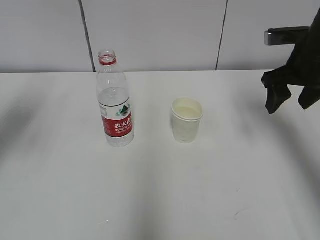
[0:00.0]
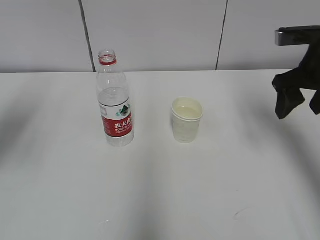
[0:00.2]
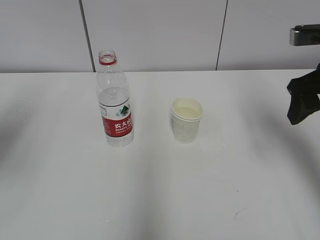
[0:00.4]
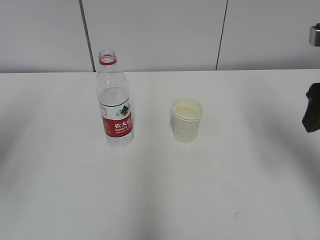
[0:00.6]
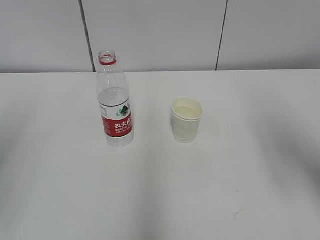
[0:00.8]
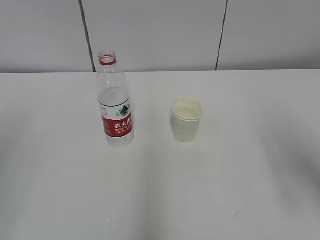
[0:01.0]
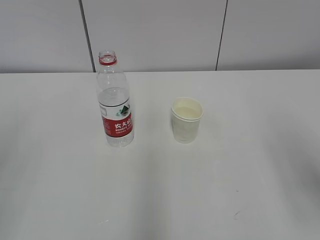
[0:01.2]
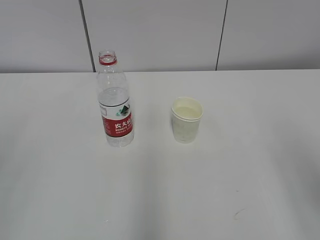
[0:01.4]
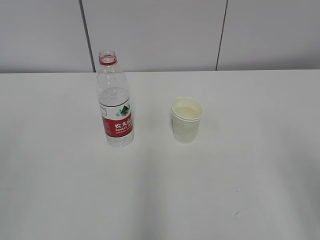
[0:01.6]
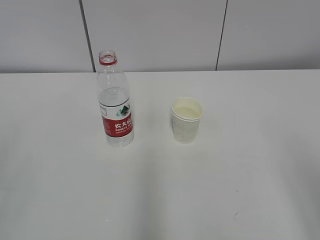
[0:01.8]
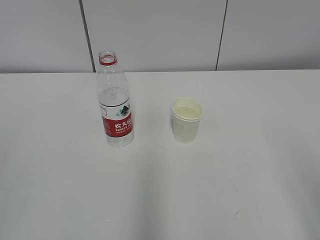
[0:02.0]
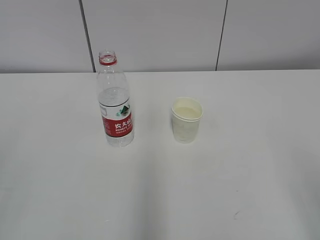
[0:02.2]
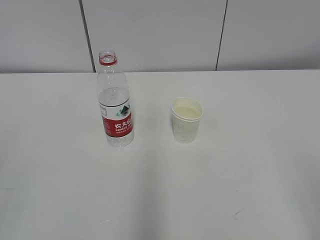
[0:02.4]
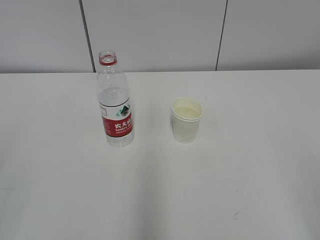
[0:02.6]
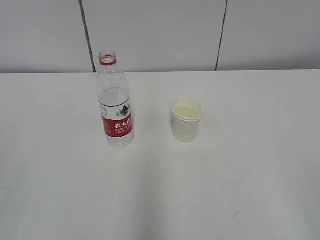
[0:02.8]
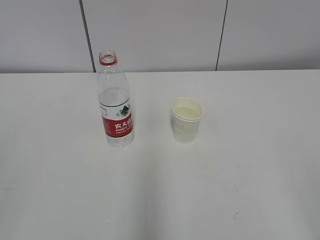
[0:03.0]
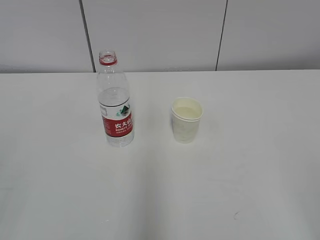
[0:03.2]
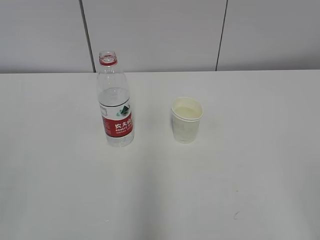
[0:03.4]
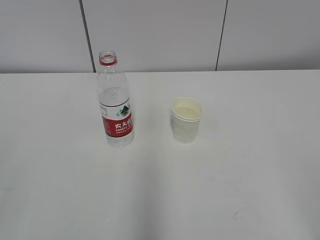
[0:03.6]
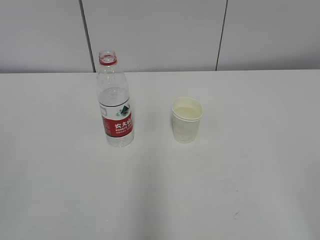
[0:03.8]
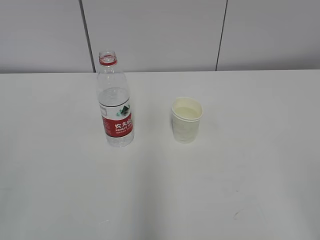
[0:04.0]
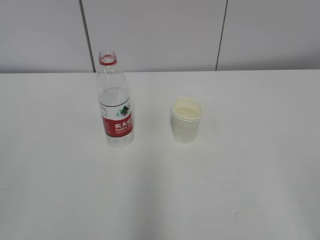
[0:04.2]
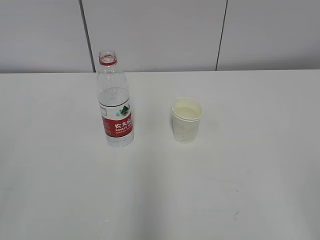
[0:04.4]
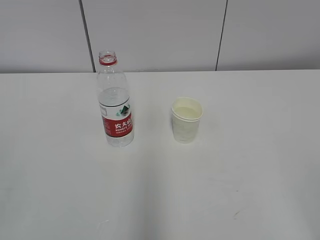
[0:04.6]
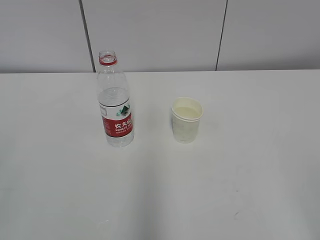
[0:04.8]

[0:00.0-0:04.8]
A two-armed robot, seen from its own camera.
0:00.0 to 0:01.6: Both grippers travel together backward, approximately 25 cm.
0:03.2 to 0:04.8: Both grippers stay put.

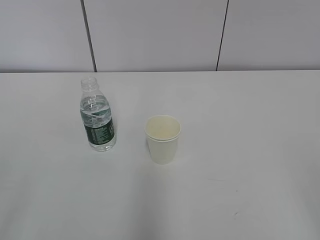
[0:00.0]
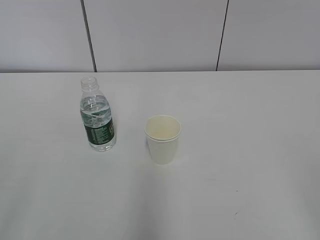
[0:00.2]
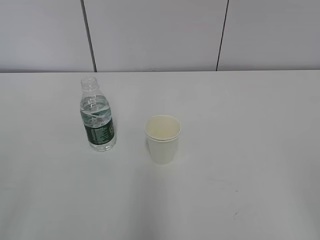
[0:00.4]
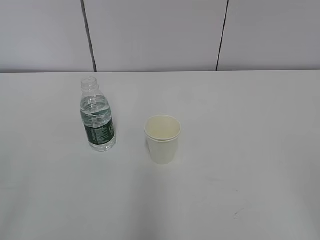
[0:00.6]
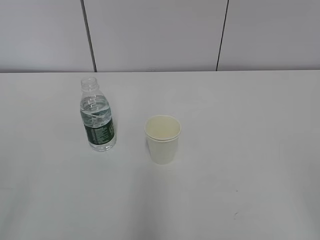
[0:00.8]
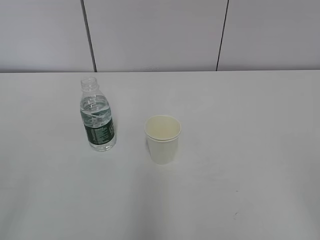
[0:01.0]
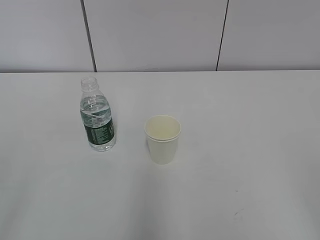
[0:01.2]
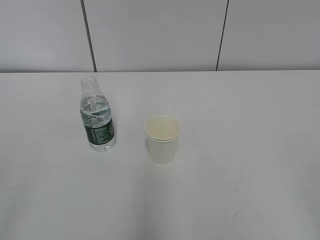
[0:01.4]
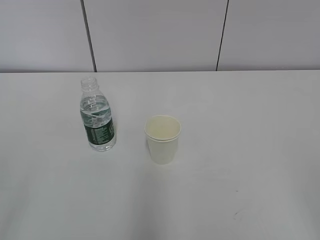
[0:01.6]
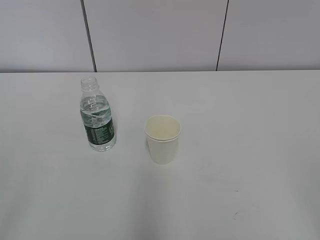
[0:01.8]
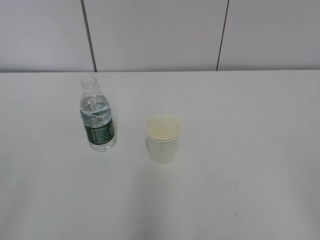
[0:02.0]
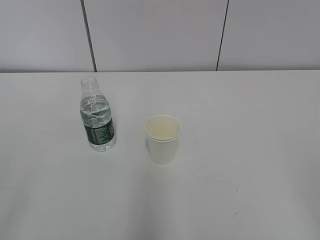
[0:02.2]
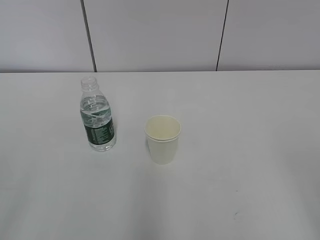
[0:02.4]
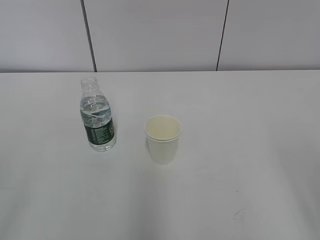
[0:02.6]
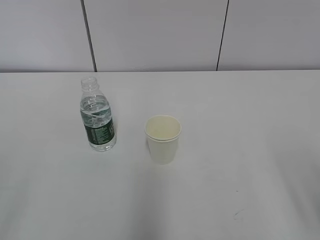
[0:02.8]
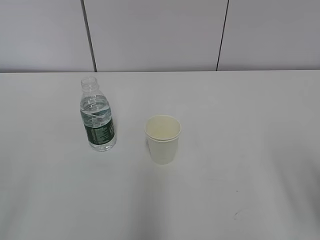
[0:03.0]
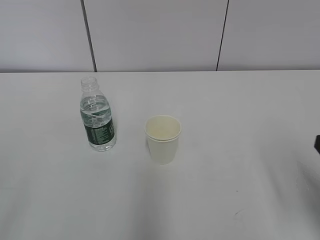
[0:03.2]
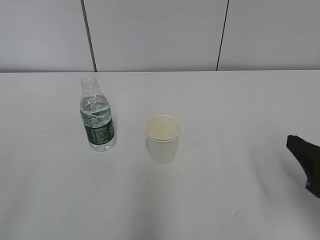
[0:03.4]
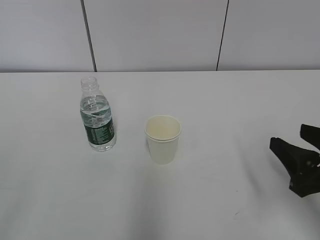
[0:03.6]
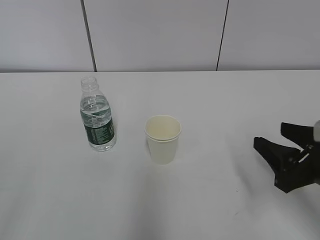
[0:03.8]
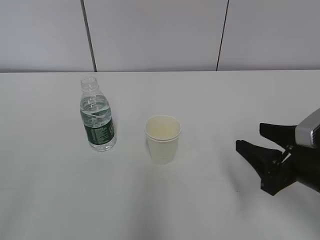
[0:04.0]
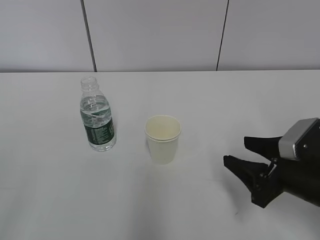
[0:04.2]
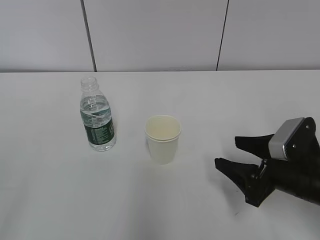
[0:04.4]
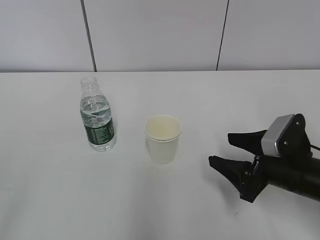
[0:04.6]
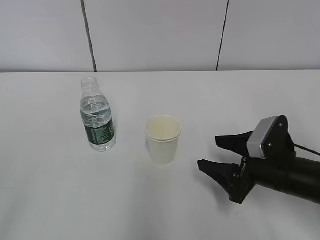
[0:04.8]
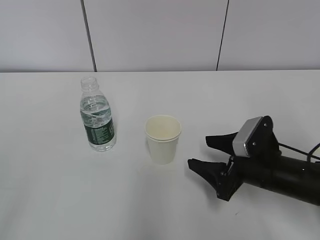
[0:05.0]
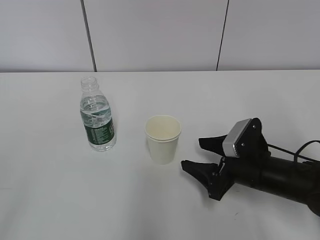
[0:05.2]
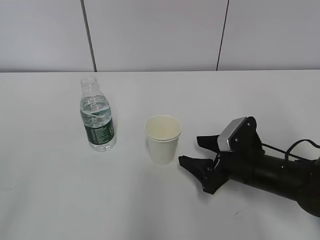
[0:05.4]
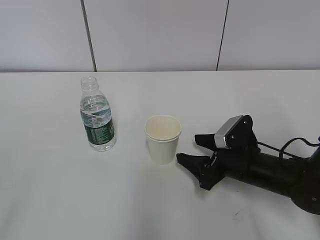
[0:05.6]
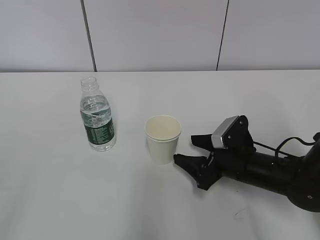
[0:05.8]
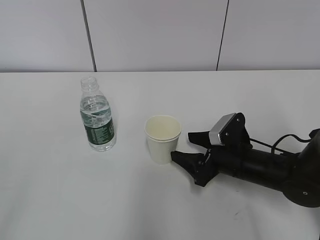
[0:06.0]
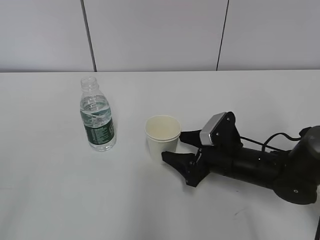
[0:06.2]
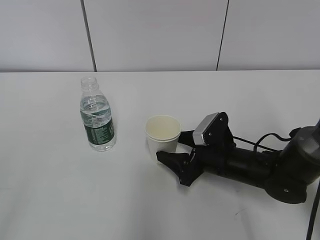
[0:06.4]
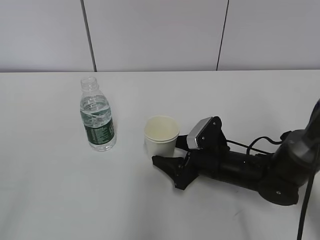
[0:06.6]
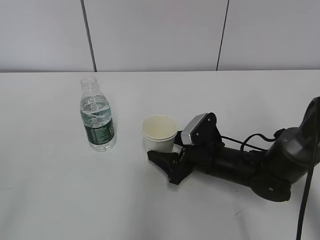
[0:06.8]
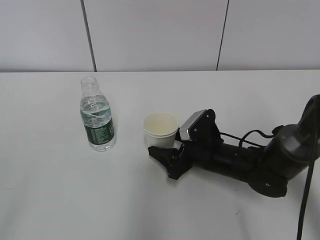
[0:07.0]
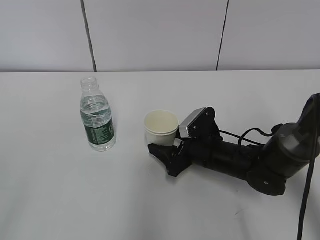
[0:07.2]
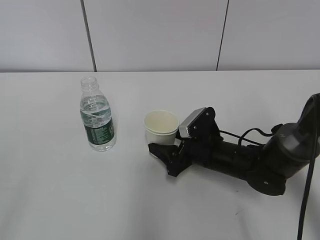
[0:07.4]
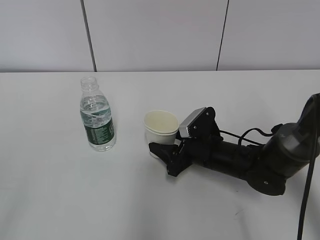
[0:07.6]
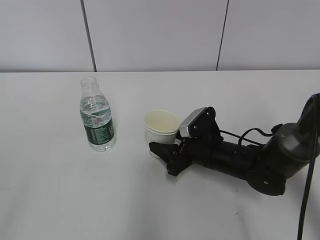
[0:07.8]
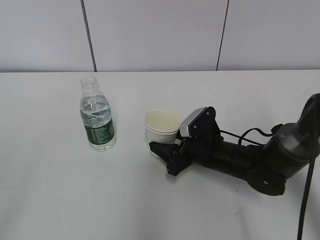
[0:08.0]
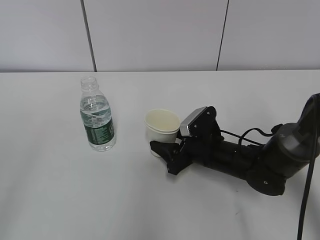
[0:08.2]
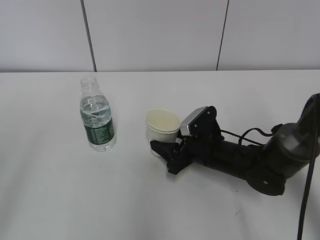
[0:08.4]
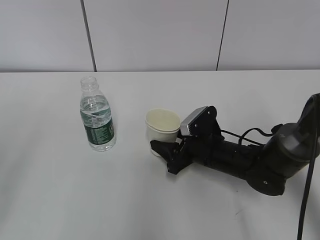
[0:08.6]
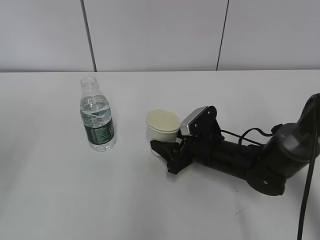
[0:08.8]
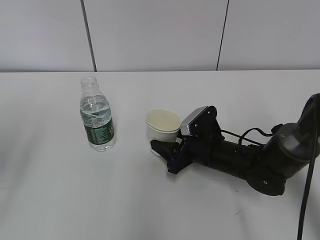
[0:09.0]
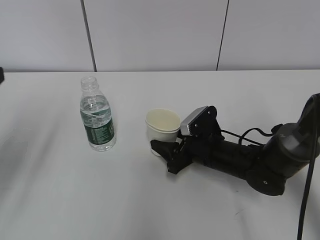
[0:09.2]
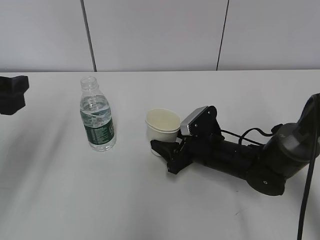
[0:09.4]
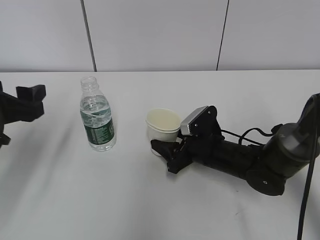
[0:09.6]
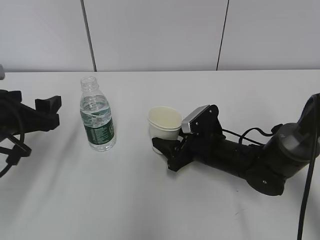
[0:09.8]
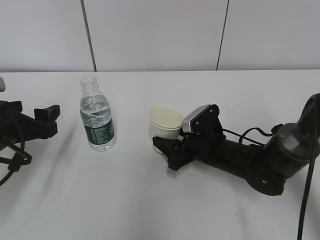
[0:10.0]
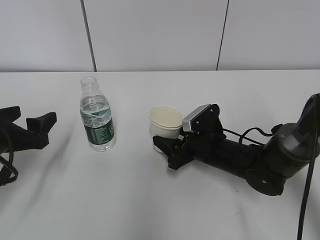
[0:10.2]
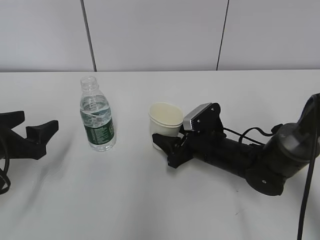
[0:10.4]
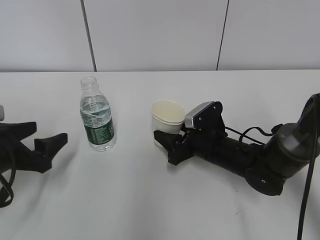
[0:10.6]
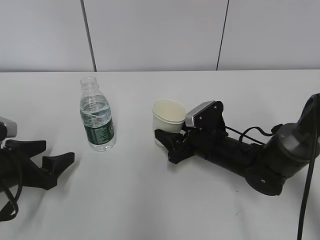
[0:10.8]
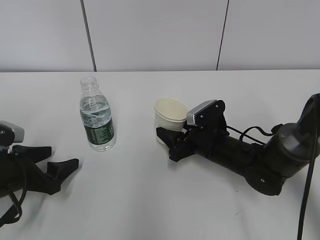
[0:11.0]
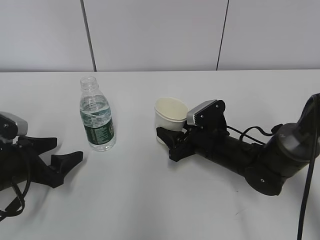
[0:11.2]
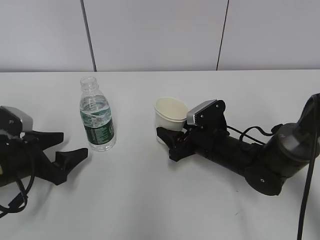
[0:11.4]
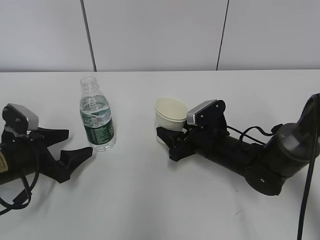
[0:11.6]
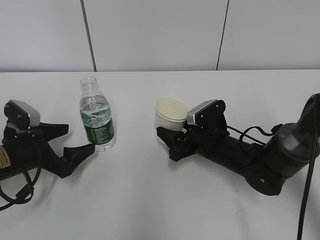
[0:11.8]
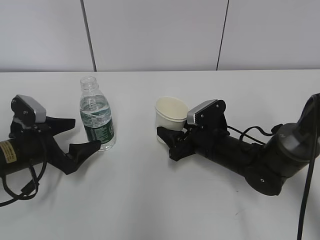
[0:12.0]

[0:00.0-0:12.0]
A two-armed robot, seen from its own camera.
Step, 0:00.0 to 0:06.8: Grab the paper cup with the right hand.
0:03.0 to 0:04.4: The right gripper travels forward, downward and to the left by roughly 20 cm, and closes and opens again.
0:04.4 to 0:06.0: The right gripper is displaced forward, to the left and downward by some 10 cm.
0:06.0 to 0:07.6: The right gripper changes place by about 5 cm, and closes up.
0:07.6 to 0:09.0: The left gripper shifts about 20 cm forward.
0:09.0 to 0:10.4: The left gripper shifts some 15 cm downward and forward.
0:10.4 to 0:12.0: The left gripper travels downward by roughly 5 cm.

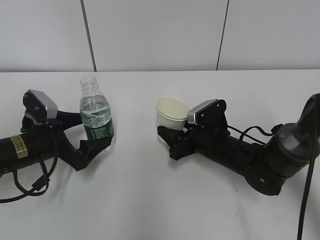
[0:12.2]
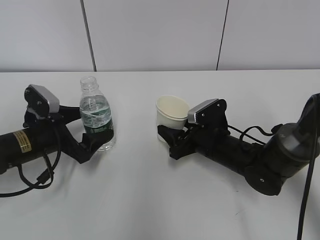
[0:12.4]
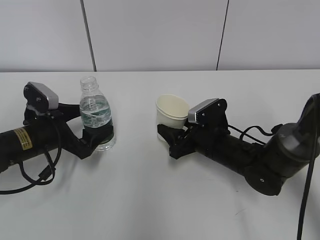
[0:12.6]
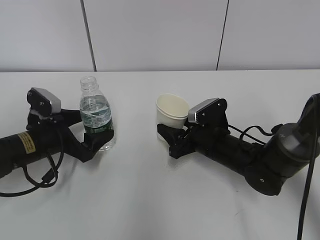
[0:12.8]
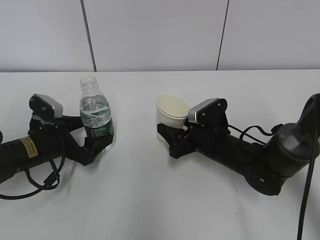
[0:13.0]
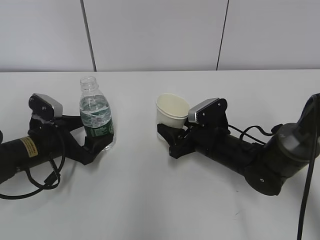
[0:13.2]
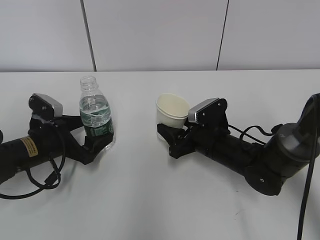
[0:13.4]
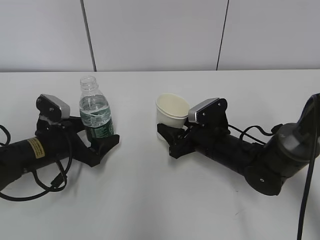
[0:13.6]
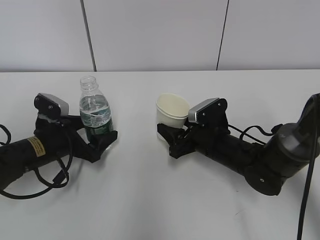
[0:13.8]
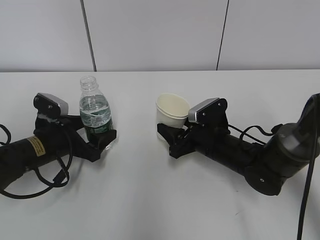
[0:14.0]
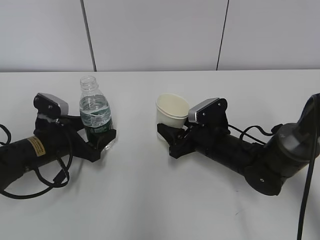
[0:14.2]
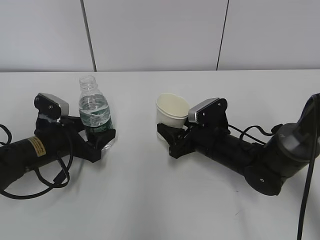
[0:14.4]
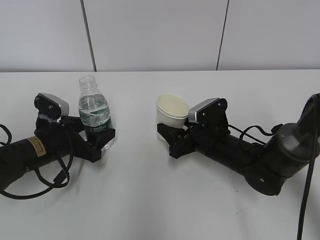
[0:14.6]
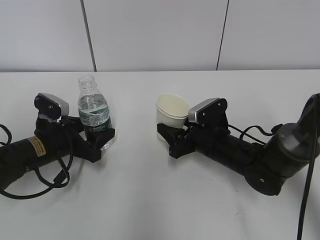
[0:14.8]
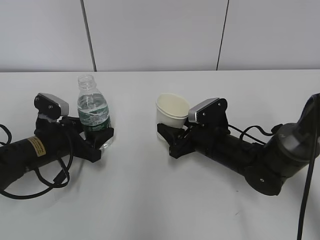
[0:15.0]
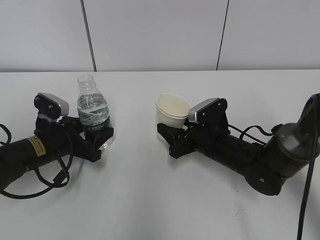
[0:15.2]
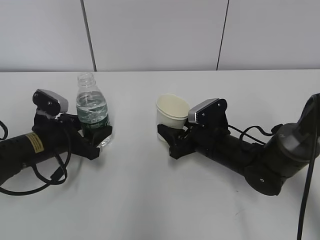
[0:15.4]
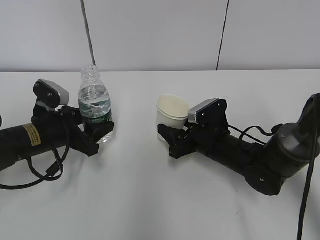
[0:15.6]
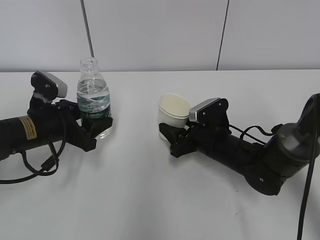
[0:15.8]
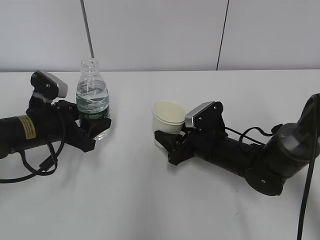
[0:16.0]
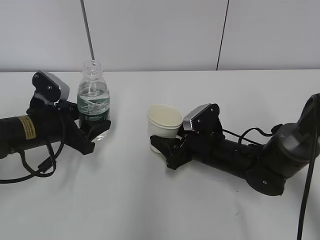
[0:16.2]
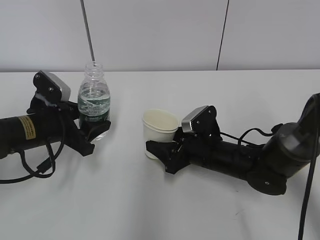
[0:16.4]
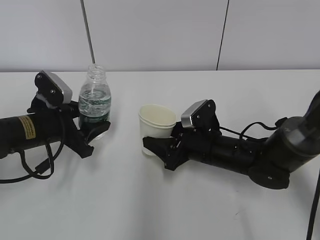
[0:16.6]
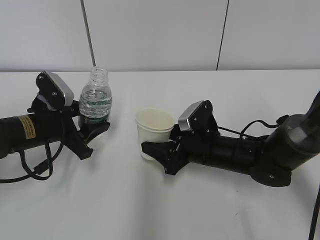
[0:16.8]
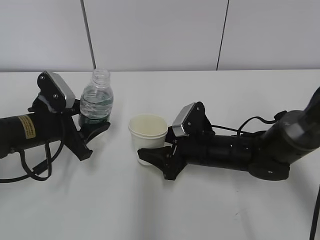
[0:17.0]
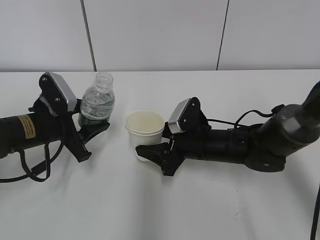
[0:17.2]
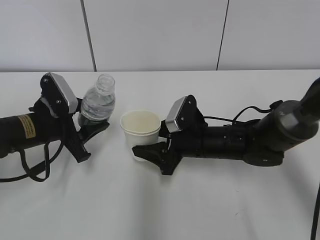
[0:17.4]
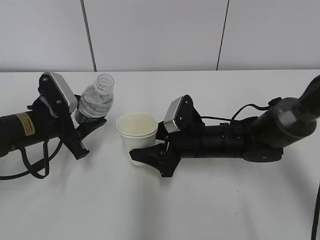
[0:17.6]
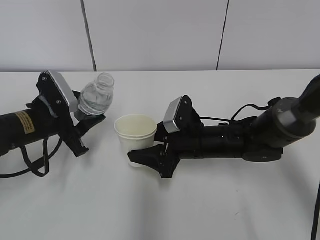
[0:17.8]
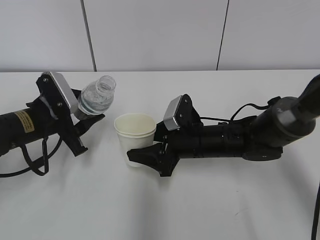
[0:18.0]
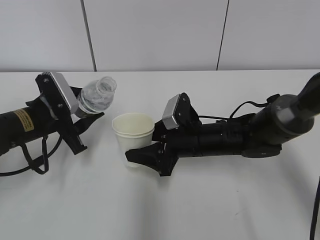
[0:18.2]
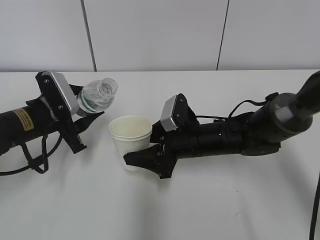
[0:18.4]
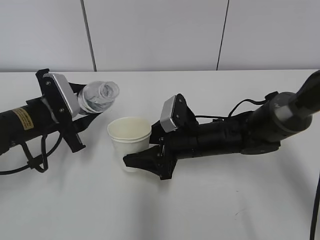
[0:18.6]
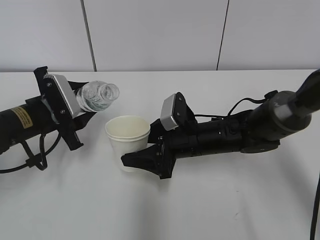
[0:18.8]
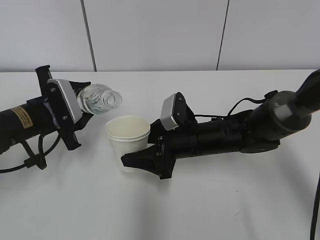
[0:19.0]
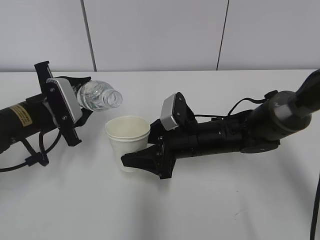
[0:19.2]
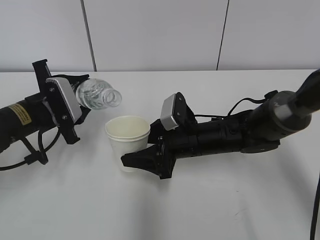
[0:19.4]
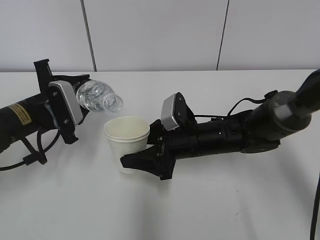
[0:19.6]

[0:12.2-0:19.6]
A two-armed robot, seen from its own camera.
Step, 0:12.8 to 0:16.6: Lift the paper cup with the right hand.
0:12.2 to 0:13.6: The grippers make only small movements.
0:13.6 to 0:15.2: The left gripper closes its fingers.
0:15.2 to 0:16.6: The left gripper is displaced upward by about 5 cm.
